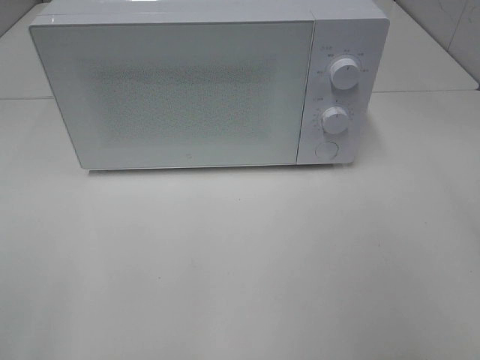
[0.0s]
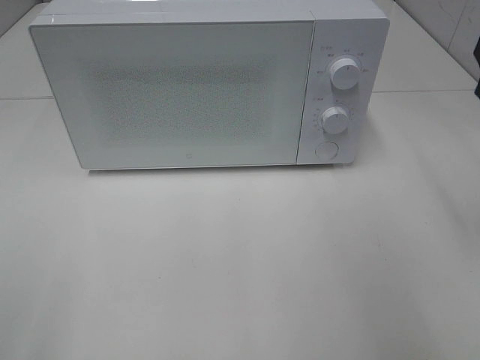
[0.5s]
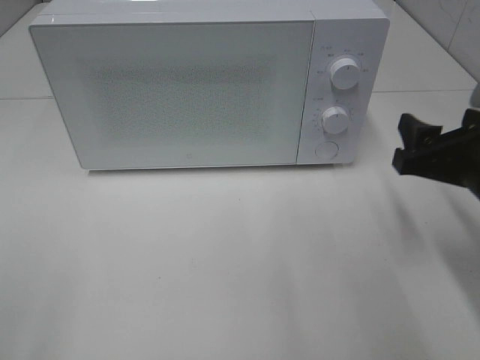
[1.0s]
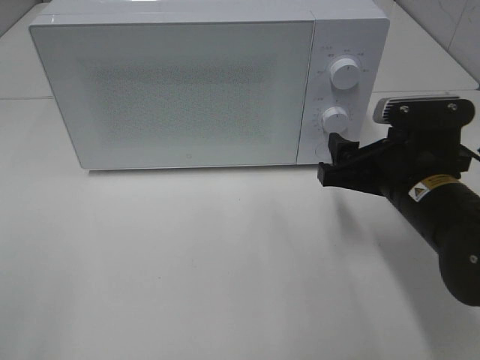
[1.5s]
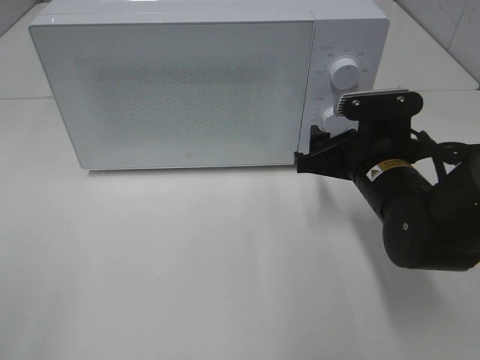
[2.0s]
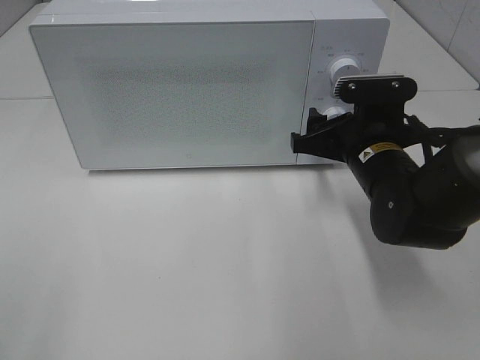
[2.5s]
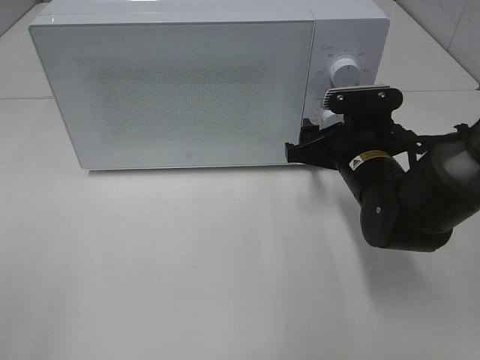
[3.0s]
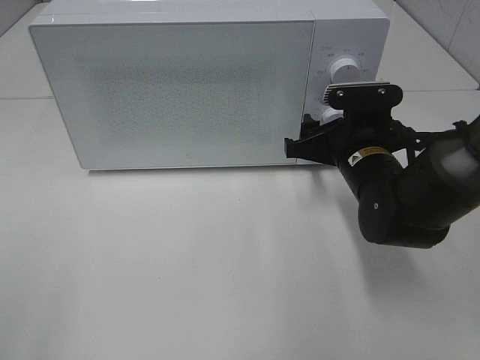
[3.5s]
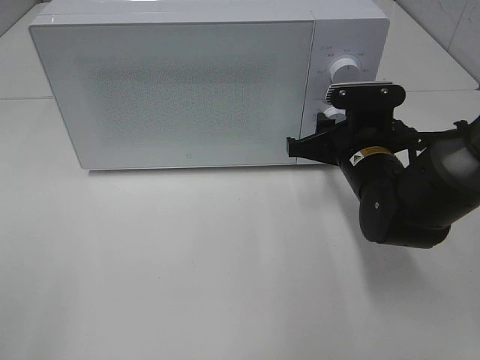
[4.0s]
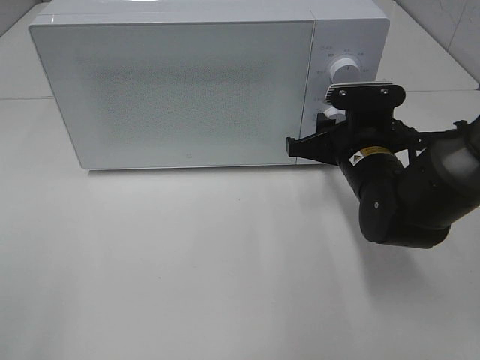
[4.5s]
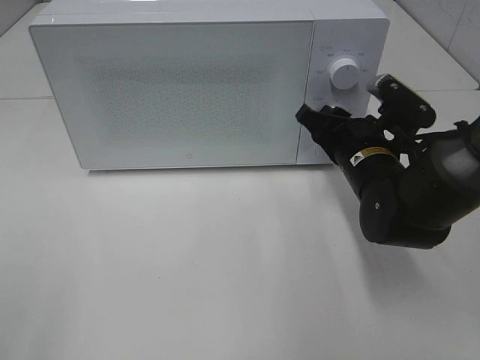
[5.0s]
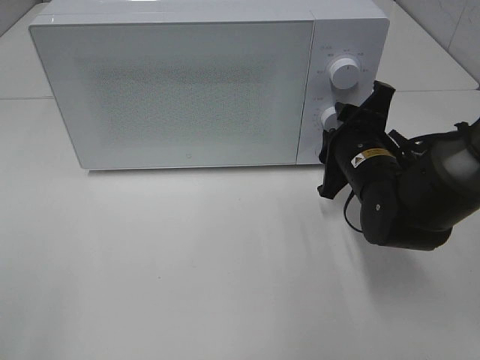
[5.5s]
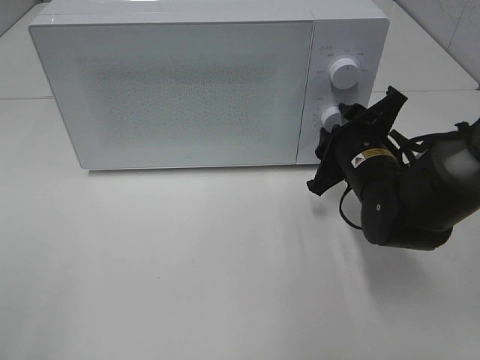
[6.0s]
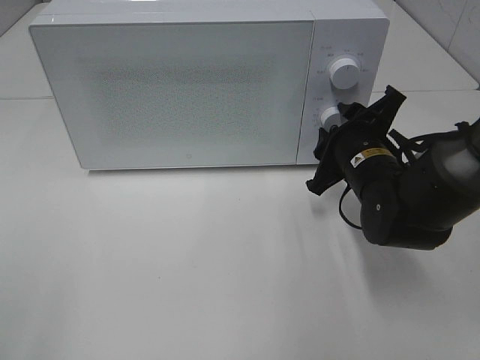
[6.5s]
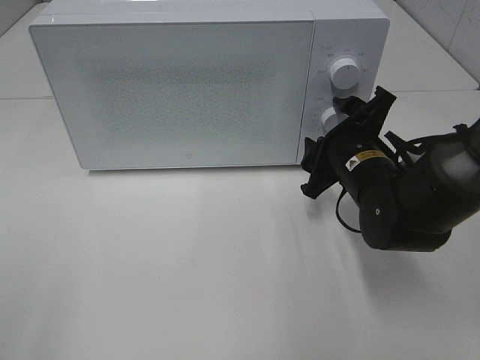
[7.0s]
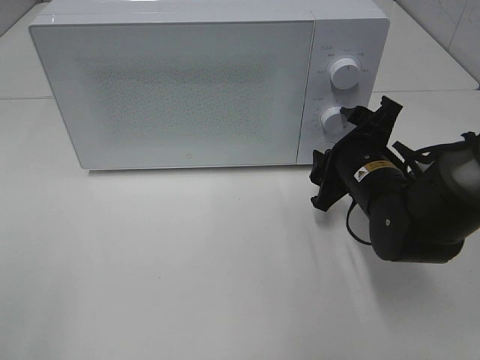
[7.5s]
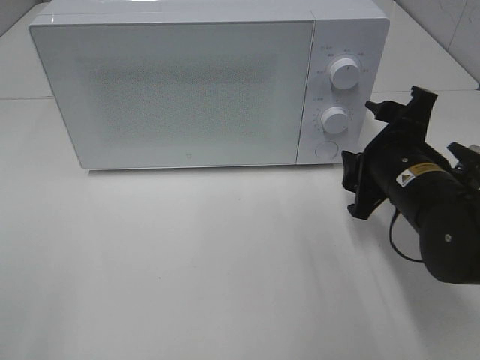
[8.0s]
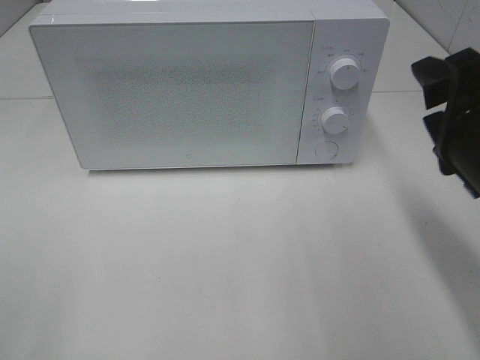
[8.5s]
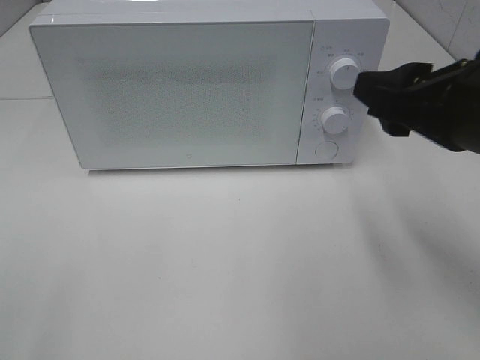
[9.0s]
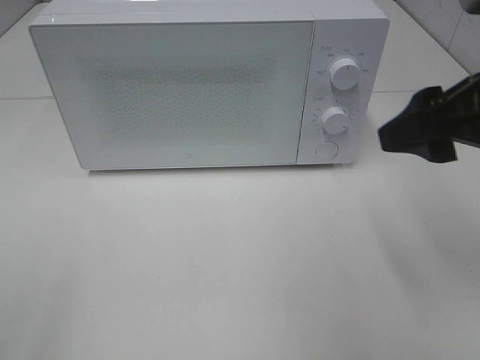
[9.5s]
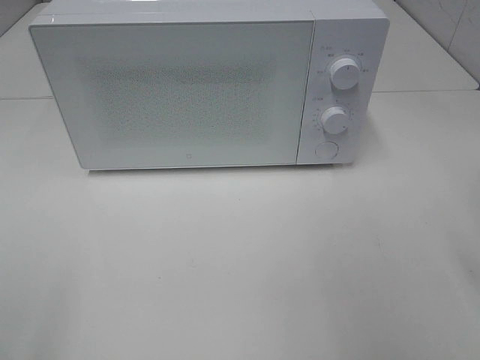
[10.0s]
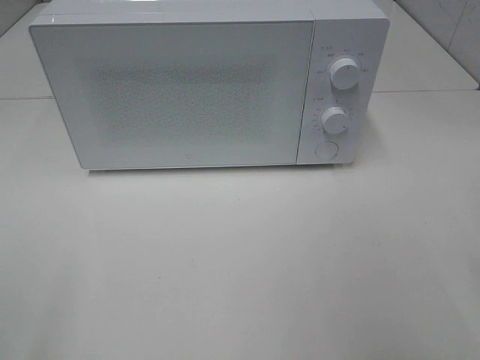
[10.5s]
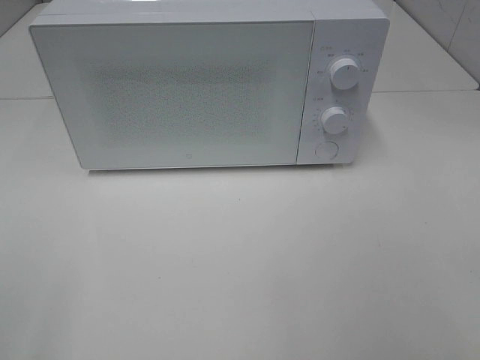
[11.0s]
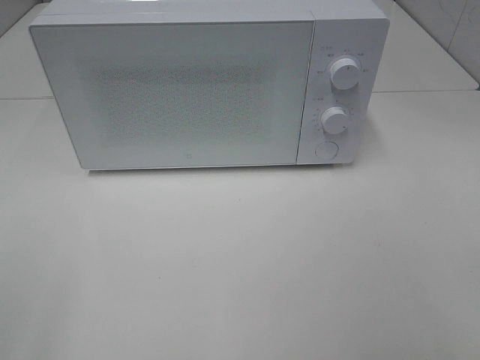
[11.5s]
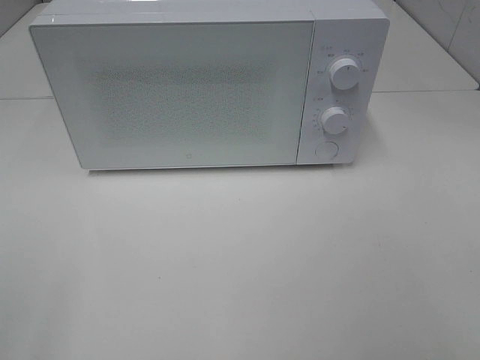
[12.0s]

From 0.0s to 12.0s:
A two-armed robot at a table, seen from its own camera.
Task of the whole recording: Heat the burger.
Step, from 0.0s to 6.5s: Right hand: twist timer button.
From 0.0s to 2.0s: The right gripper moves downward, forward and to the left, roughly 25 cm.
From 2.0s to 4.0s: The grippers stay close to where they were, moving slightly.
From 6.0s to 8.0s: The right gripper shifts approximately 5 cm backward.
From 8.0s to 10.0s: The right gripper is displaced upward, to the right and backward by about 20 cm.

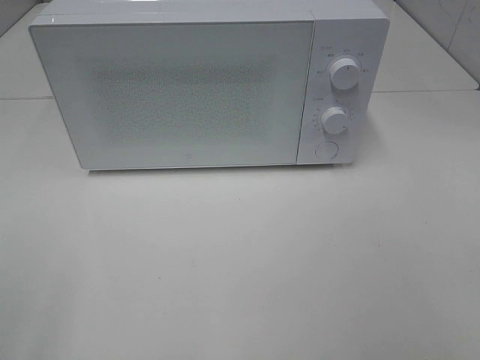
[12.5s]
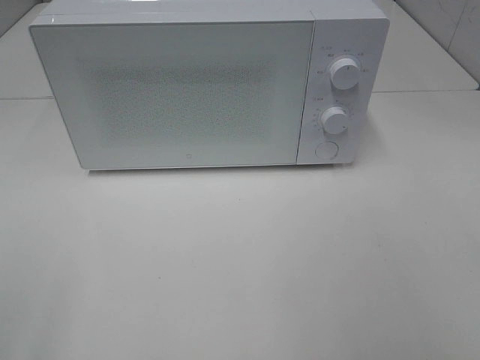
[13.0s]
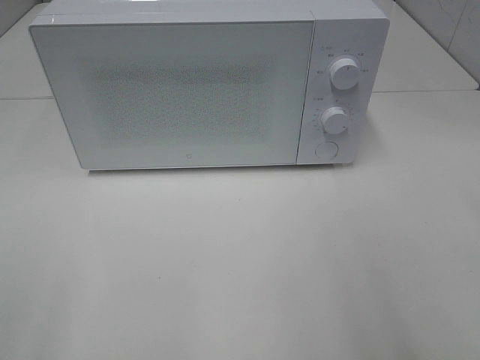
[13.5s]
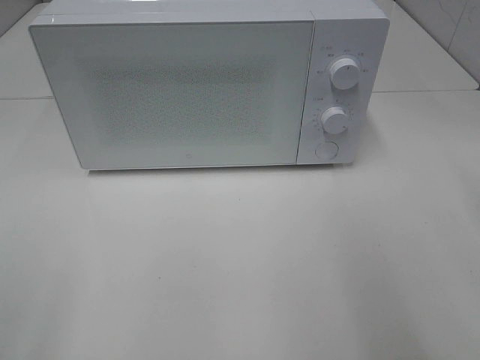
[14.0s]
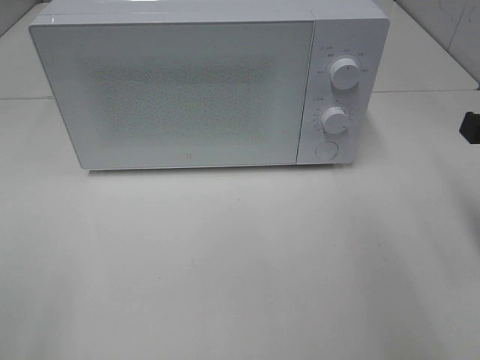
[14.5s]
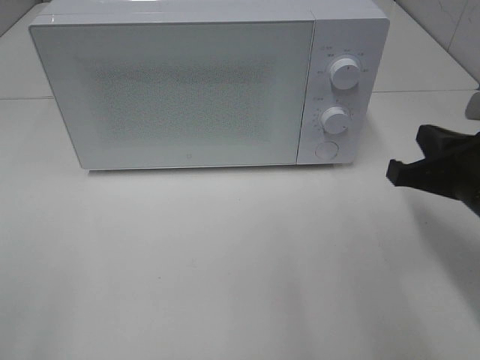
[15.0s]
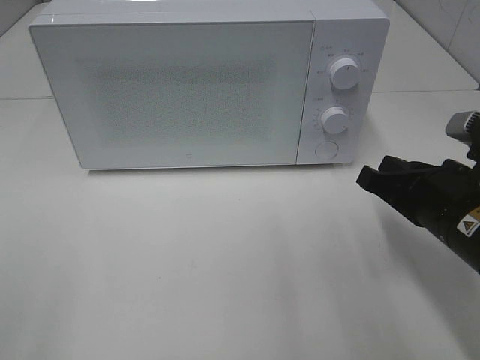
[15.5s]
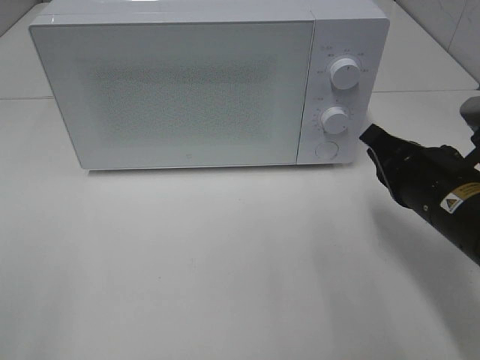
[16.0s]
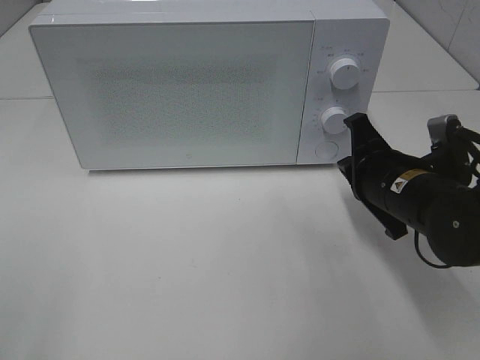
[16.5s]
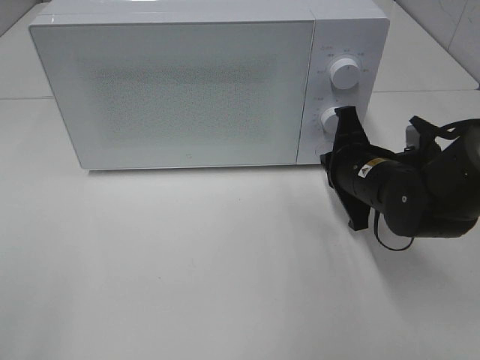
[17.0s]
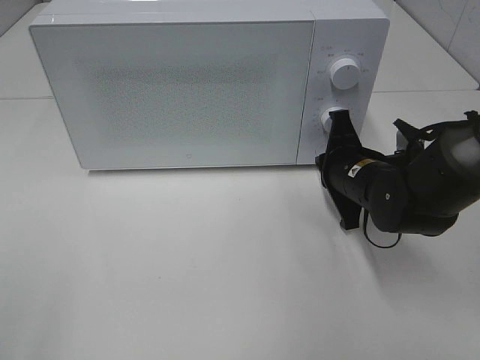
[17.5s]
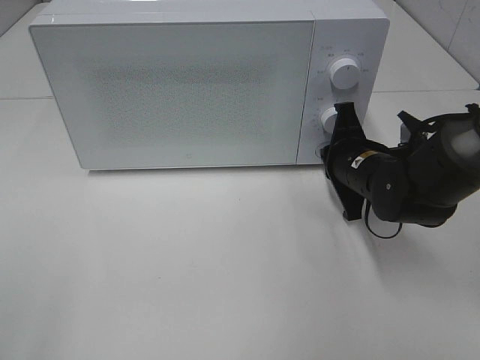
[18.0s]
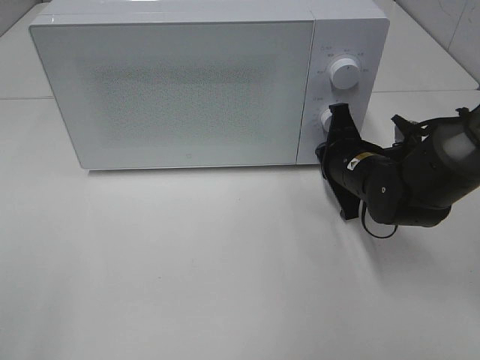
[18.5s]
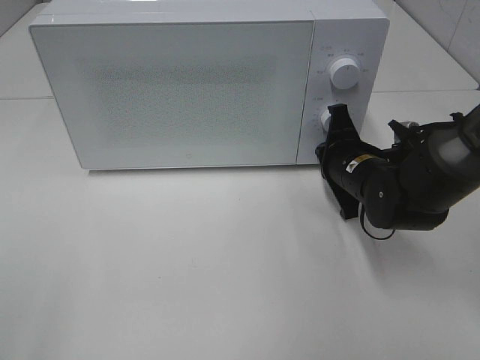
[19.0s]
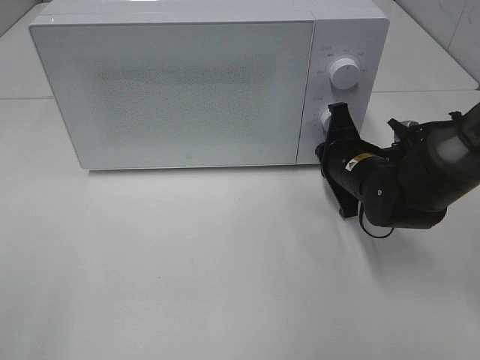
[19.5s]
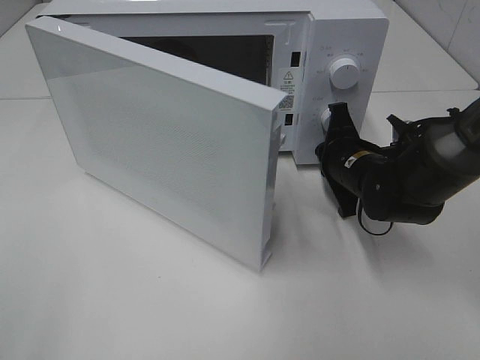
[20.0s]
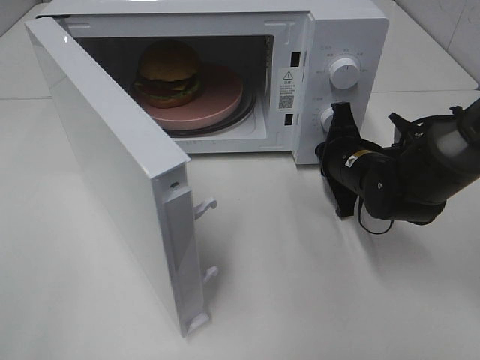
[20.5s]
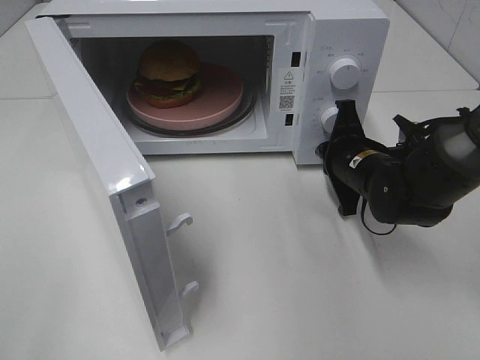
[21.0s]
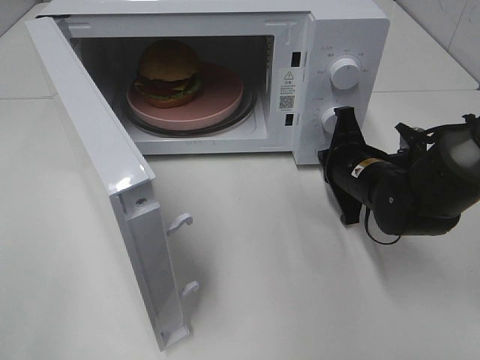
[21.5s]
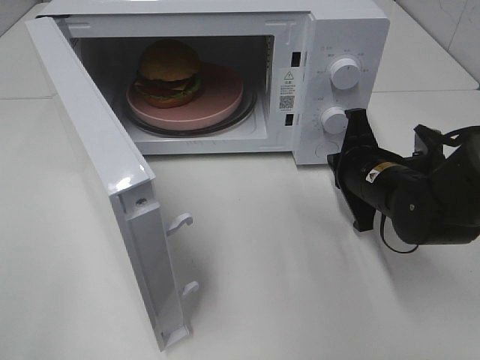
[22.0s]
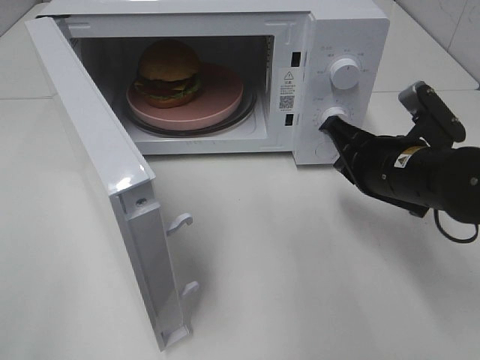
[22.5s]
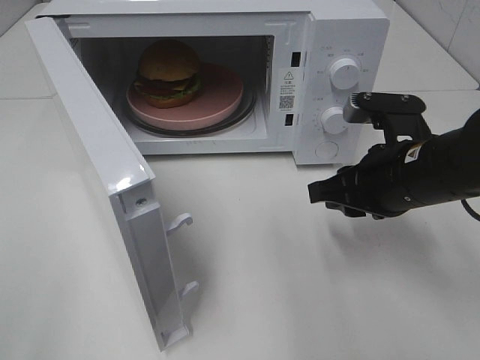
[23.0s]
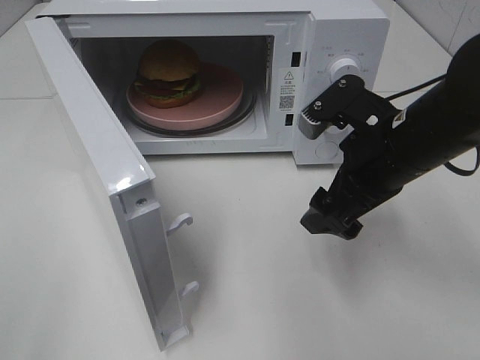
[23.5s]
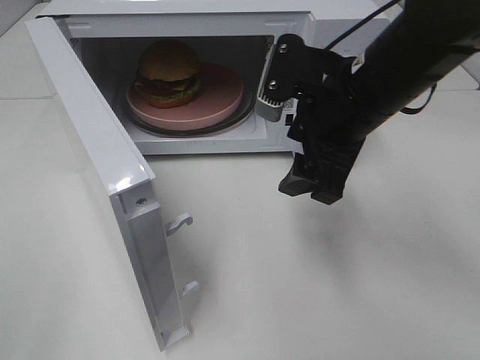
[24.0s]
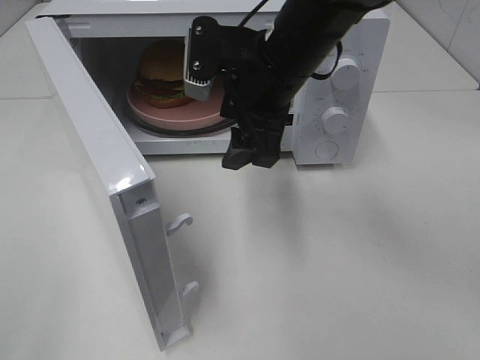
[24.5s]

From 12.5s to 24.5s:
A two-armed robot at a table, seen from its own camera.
Task of the whole recording: Heat the burger.
Step, from 12.5s to 21.0s: Right hand: press the switch.
From 12.5s to 14.5s: The right gripper goes about 20 cm forward, and closes its fingers.
From 14.5s to 16.5s: The right gripper shifts roughly 15 cm downward, to the left and forward.
From 16.5s to 18.5s: The right gripper is displaced forward by about 5 cm.
From 20.5s to 22.5s: The right gripper shifts roughly 10 cm backward and upward.
From 22.5s to 24.5s: The right gripper goes roughly 20 cm to the left, upward and forward, and opens its fingers.

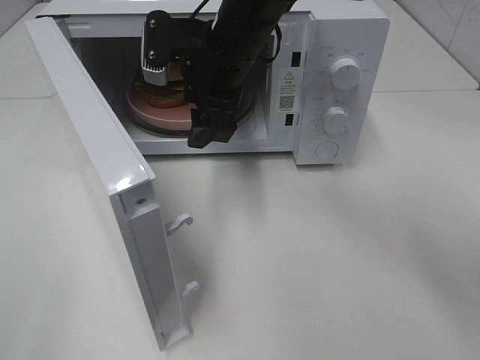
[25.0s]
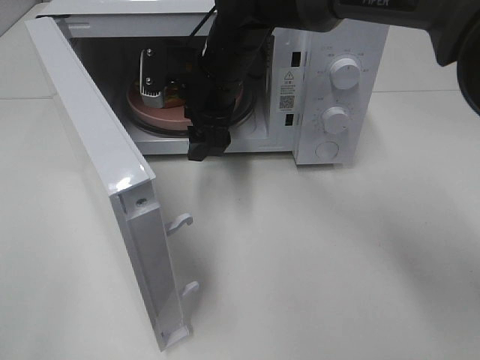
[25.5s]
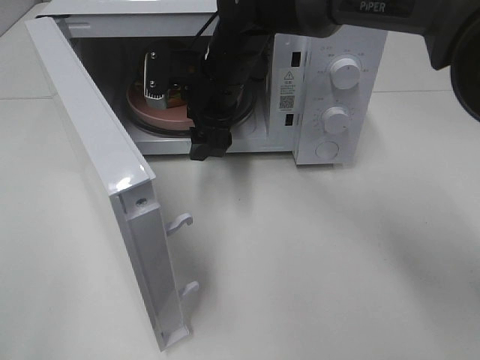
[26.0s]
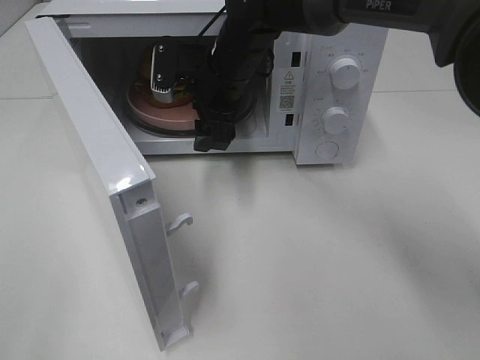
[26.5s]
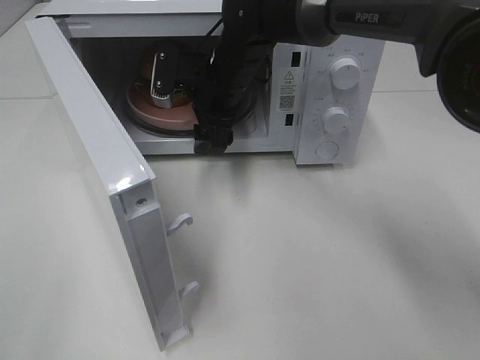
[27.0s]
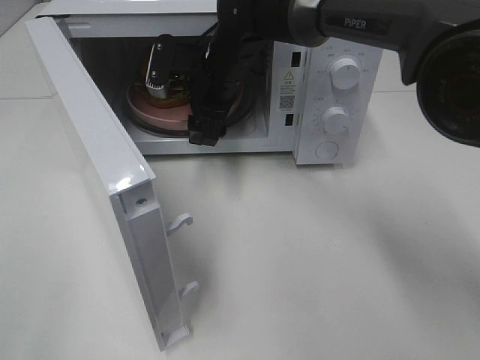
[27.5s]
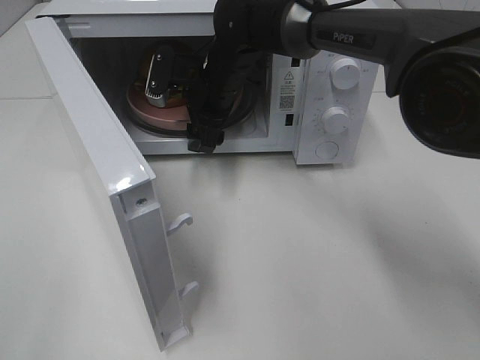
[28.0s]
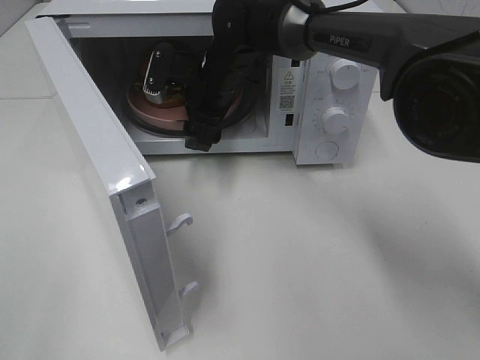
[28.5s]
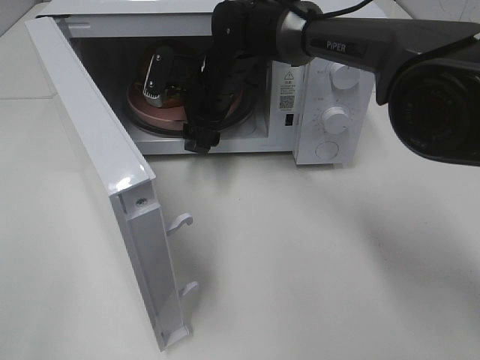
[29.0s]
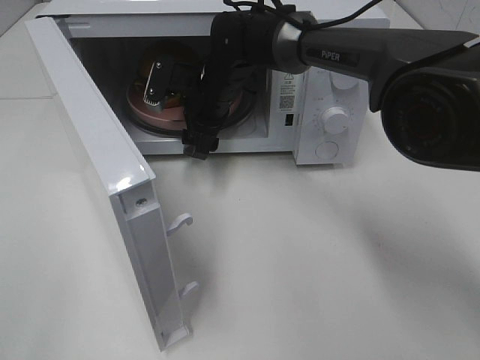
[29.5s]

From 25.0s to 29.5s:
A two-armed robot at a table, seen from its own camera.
Task of the whole recording: Heat the burger.
From 25.0s to 27.0s: The right gripper goes approximately 5 cm downward.
From 27.0s to 29.5s: The grippers move only a little.
